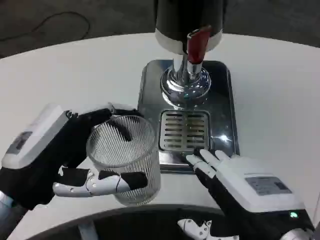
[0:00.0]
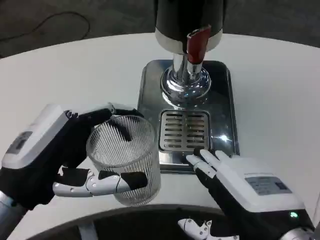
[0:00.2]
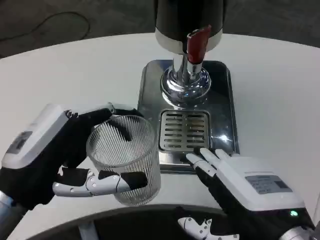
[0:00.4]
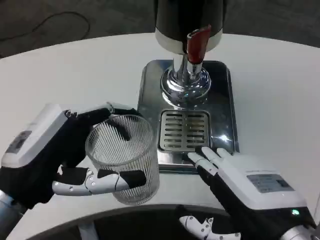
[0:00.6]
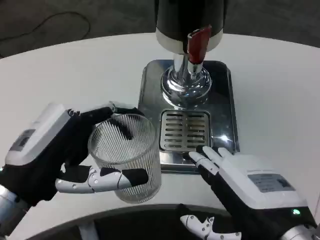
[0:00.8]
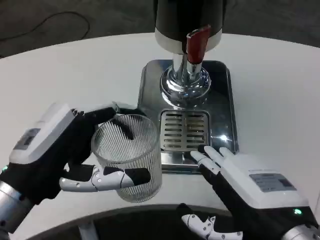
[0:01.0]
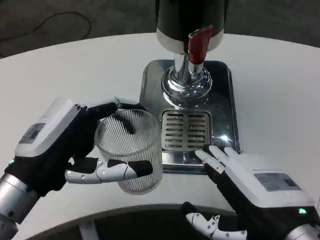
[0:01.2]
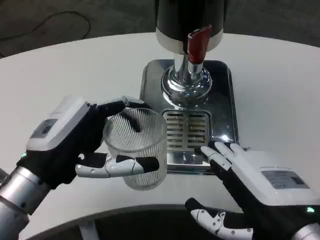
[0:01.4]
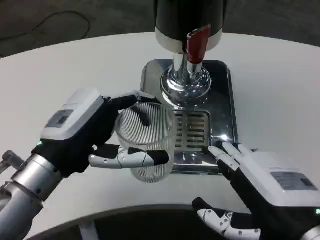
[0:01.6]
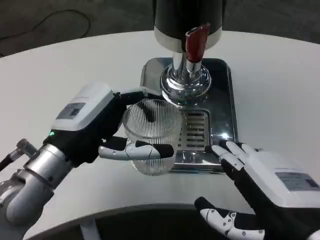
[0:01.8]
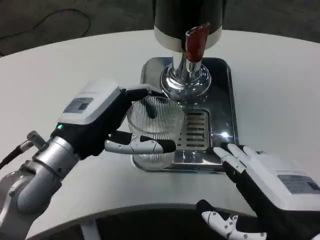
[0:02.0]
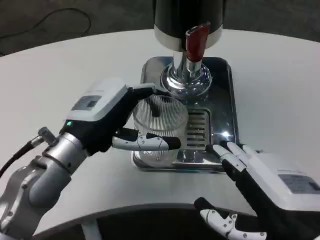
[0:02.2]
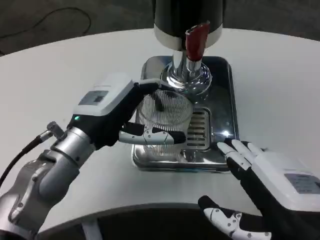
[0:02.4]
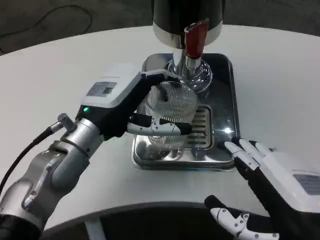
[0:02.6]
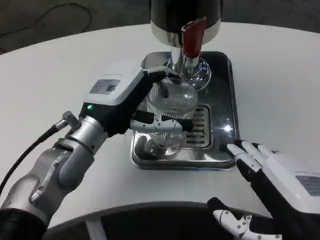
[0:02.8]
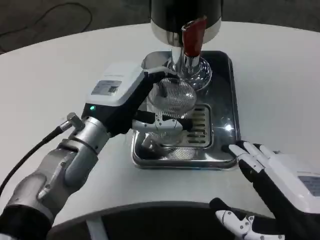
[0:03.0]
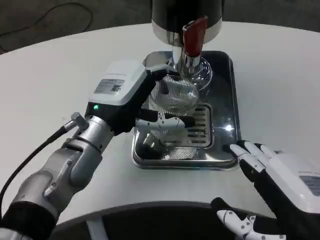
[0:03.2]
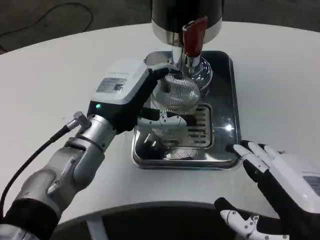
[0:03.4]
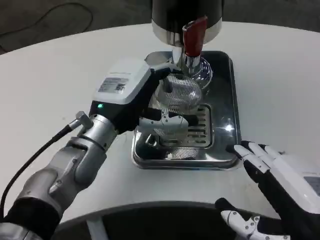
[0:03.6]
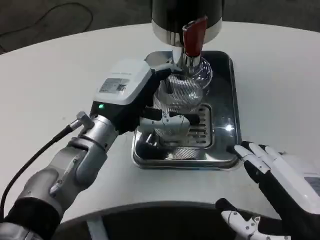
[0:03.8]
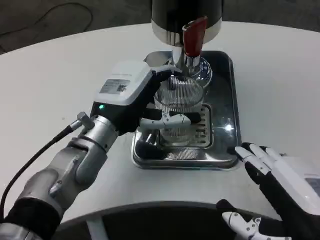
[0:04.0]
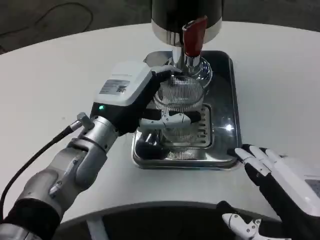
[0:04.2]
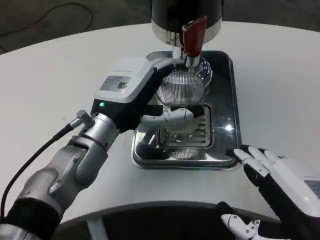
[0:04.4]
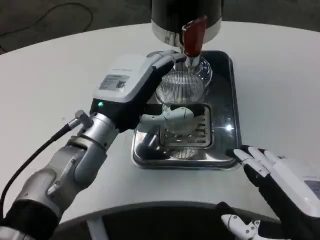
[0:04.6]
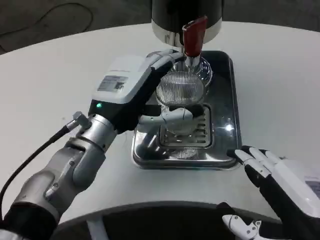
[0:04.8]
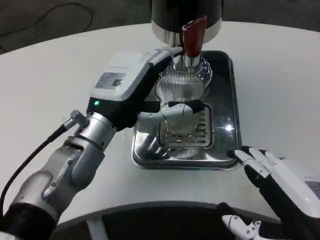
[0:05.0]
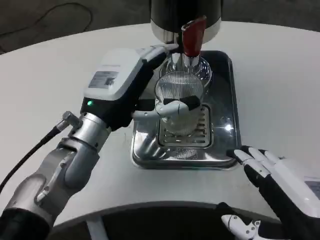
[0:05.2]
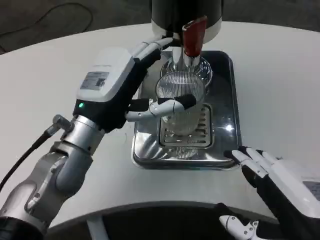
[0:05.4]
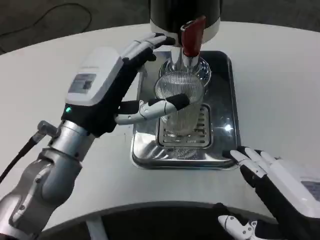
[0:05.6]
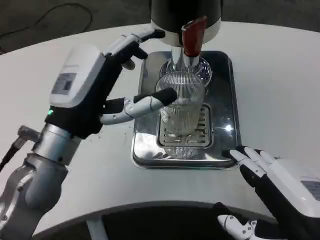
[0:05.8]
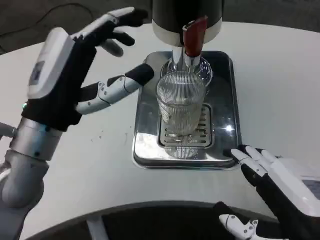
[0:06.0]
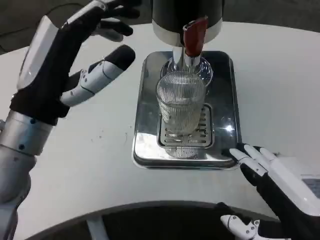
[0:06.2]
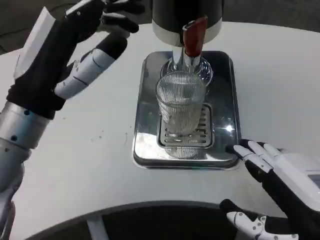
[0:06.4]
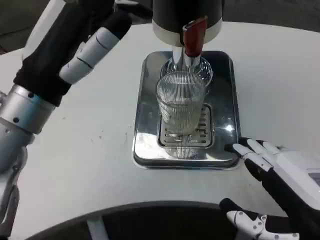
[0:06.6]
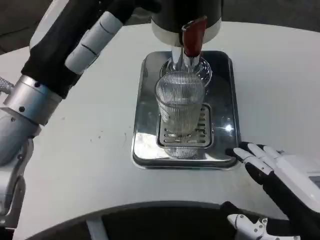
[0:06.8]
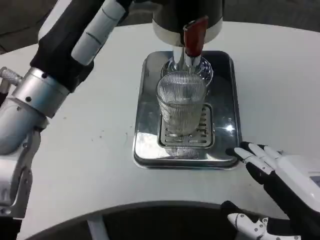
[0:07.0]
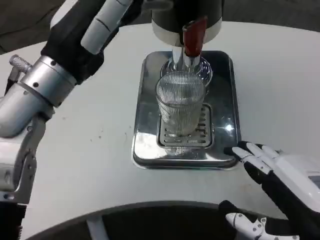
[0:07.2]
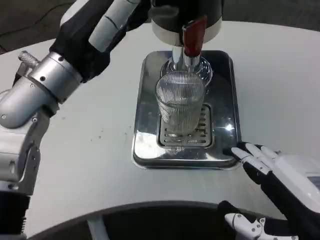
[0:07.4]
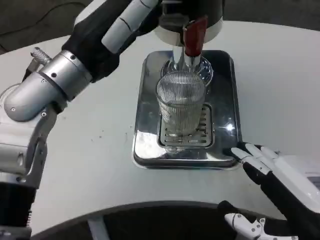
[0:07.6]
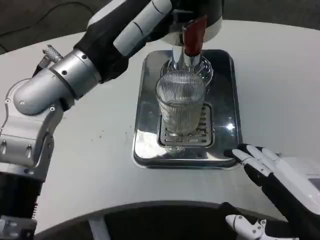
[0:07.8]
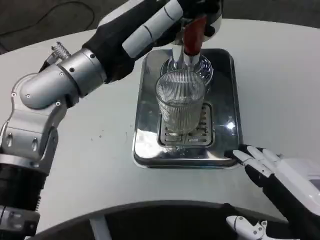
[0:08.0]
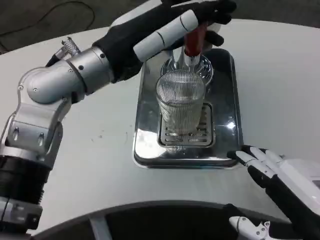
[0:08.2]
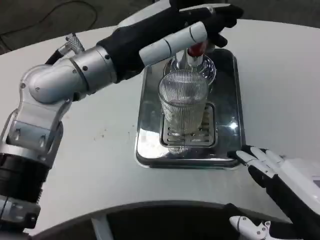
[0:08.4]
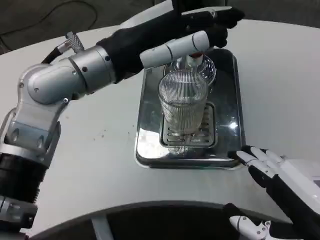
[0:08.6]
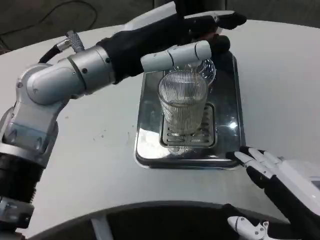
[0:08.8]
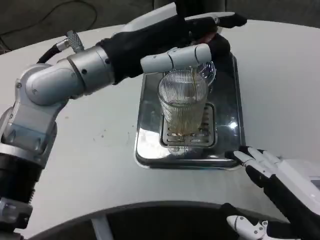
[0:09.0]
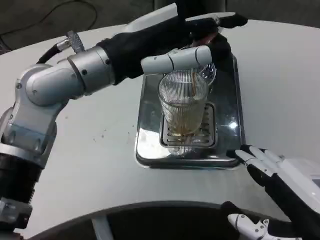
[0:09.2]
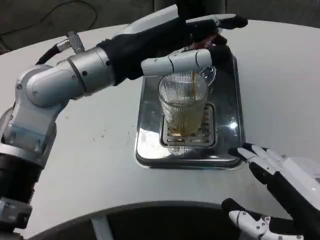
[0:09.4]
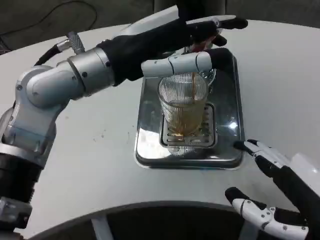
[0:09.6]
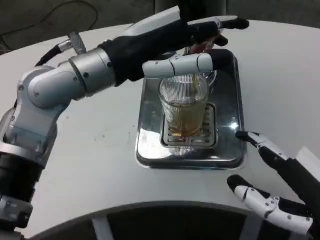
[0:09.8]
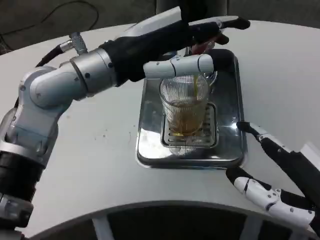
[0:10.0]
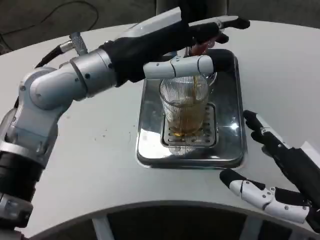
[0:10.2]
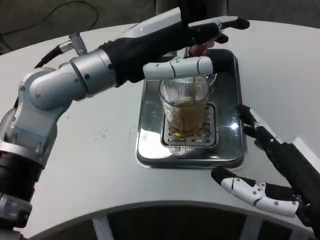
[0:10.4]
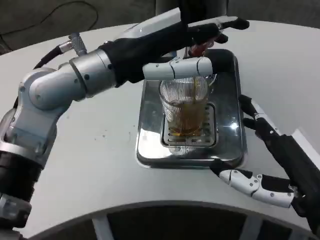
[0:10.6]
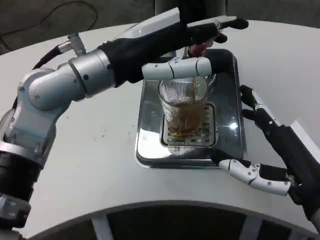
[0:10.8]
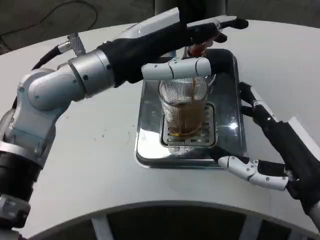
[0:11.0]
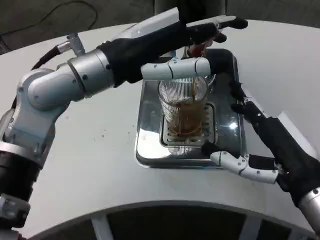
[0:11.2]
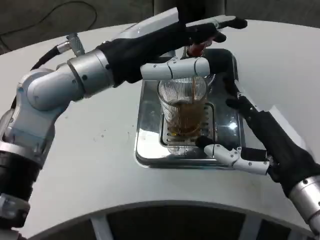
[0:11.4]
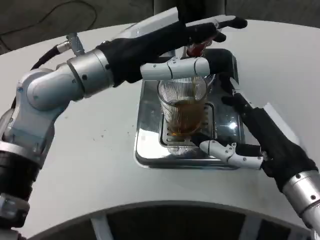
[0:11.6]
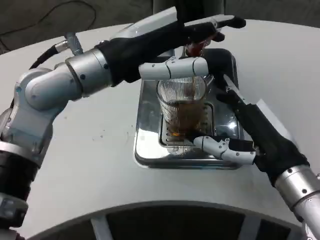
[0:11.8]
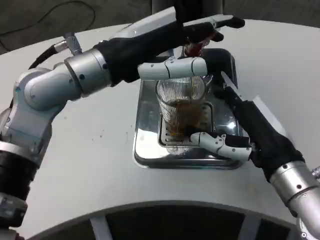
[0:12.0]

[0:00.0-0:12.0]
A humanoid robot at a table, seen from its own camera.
Task of the whole recording: Grasp the cup under the faucet to collect the drink, then remove the cup.
0:00.0 to 0:01.6: The left hand travels forward by some 5 cm.
0:01.6 to 0:03.0: The left hand heads forward, covering roughly 10 cm.
0:03.0 to 0:04.4: Neither hand changes place.
0:04.4 to 0:06.0: The left hand travels backward and to the left by approximately 10 cm.
0:06.0 to 0:07.6: The left hand heads upward, covering about 10 cm.
0:10.4 to 0:12.0: The right hand goes approximately 10 cm forward.

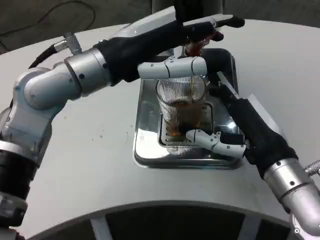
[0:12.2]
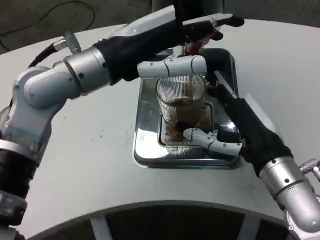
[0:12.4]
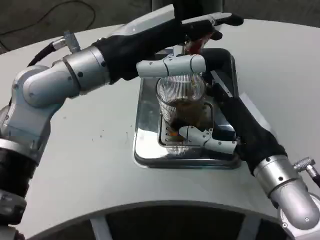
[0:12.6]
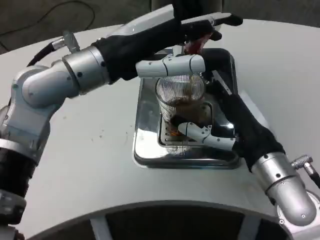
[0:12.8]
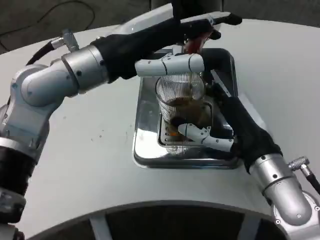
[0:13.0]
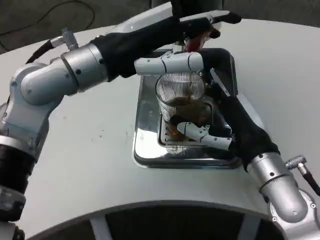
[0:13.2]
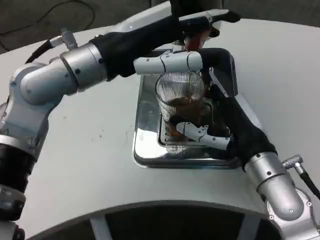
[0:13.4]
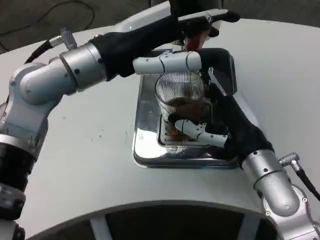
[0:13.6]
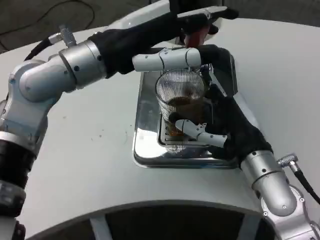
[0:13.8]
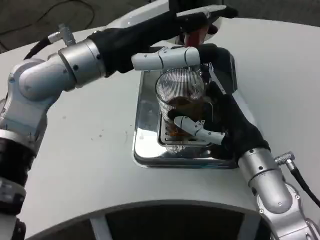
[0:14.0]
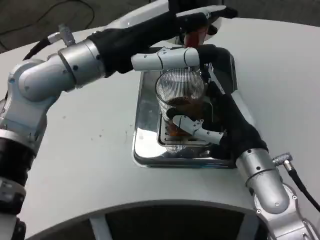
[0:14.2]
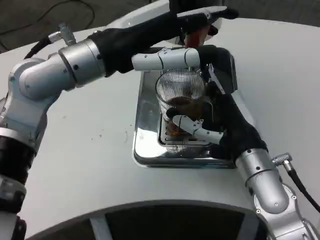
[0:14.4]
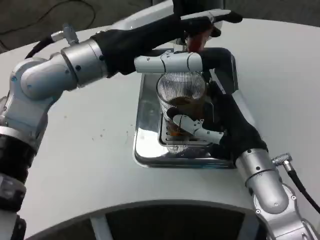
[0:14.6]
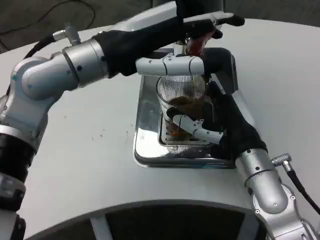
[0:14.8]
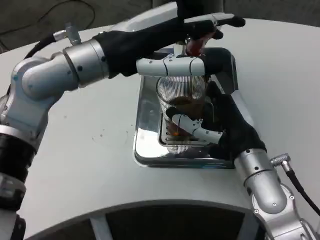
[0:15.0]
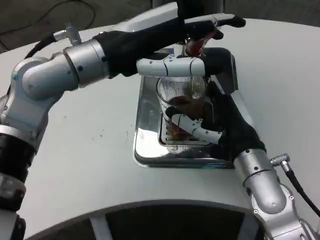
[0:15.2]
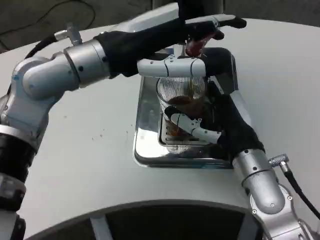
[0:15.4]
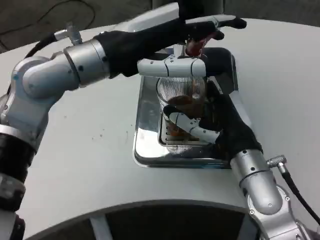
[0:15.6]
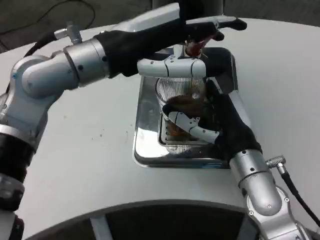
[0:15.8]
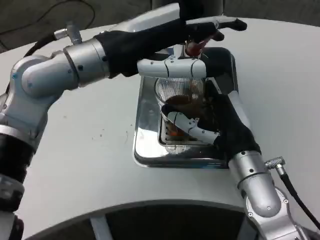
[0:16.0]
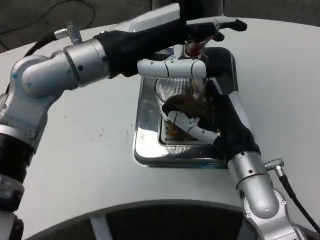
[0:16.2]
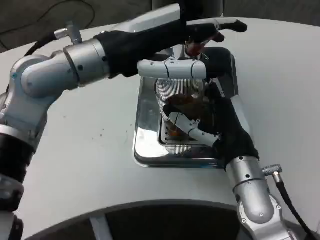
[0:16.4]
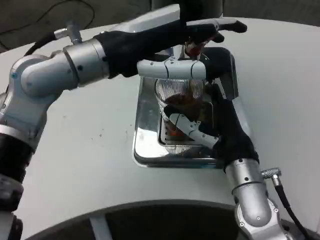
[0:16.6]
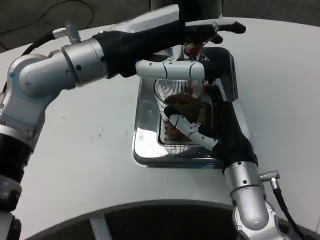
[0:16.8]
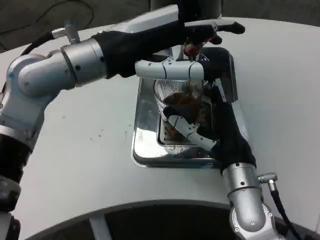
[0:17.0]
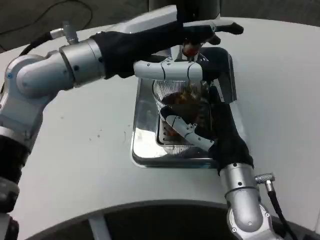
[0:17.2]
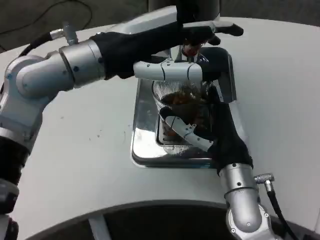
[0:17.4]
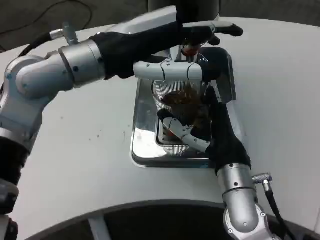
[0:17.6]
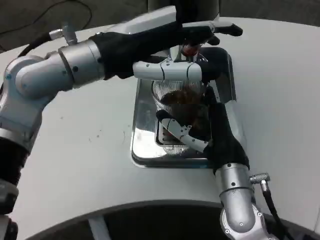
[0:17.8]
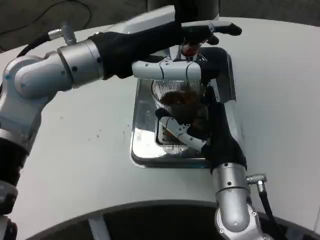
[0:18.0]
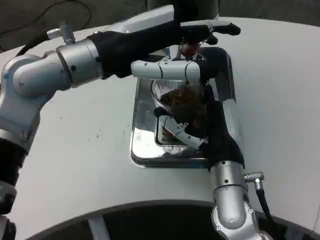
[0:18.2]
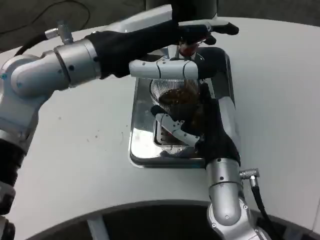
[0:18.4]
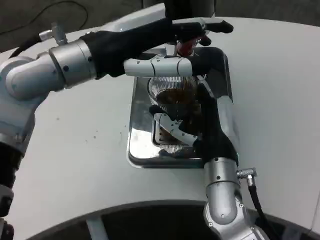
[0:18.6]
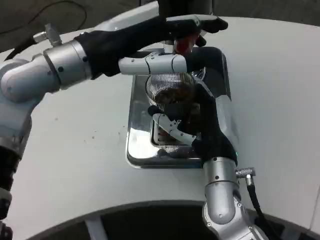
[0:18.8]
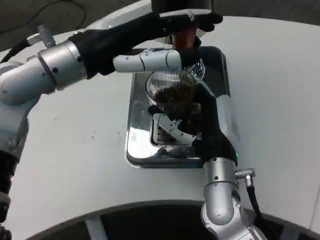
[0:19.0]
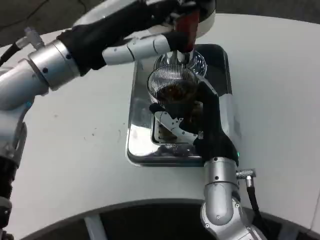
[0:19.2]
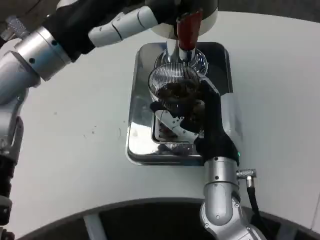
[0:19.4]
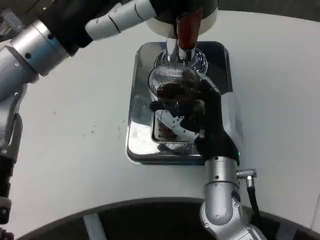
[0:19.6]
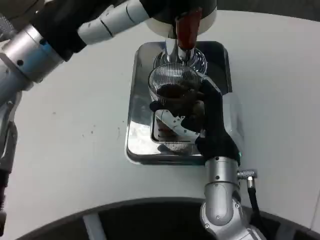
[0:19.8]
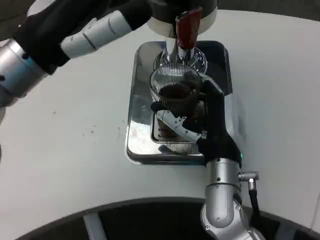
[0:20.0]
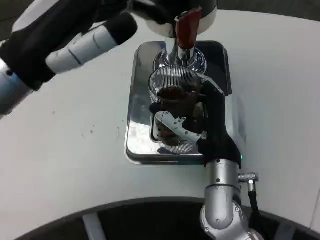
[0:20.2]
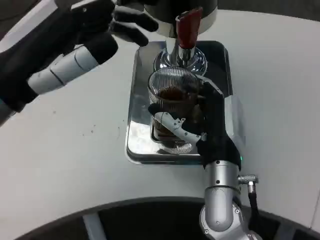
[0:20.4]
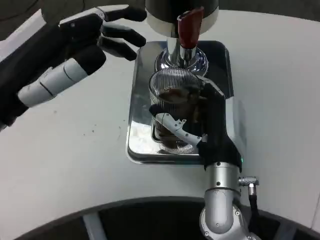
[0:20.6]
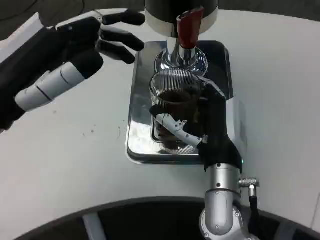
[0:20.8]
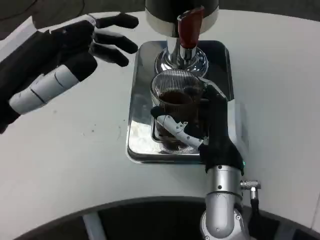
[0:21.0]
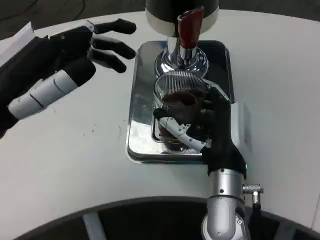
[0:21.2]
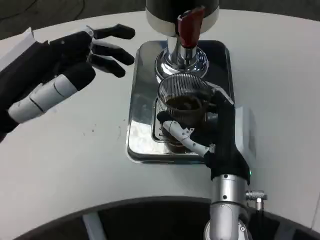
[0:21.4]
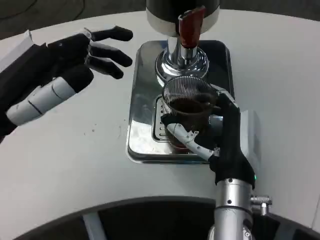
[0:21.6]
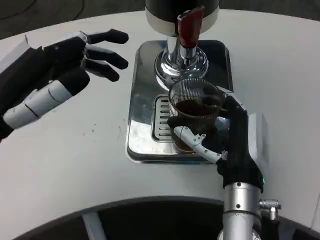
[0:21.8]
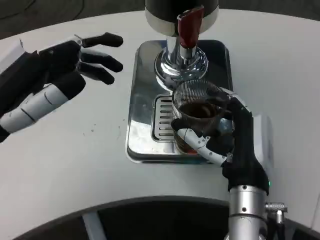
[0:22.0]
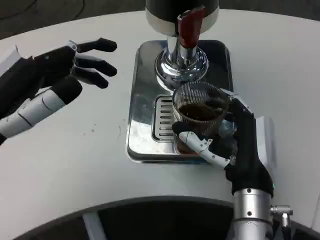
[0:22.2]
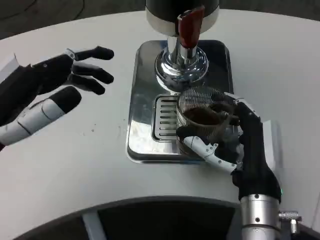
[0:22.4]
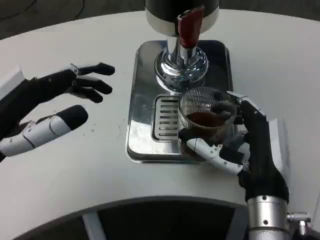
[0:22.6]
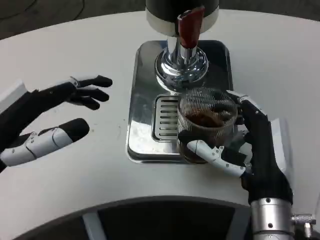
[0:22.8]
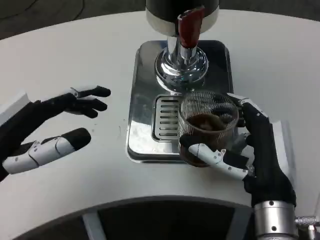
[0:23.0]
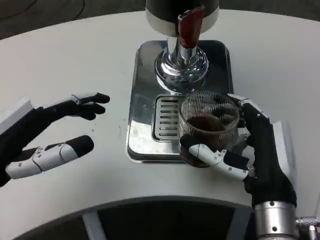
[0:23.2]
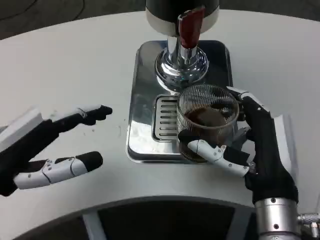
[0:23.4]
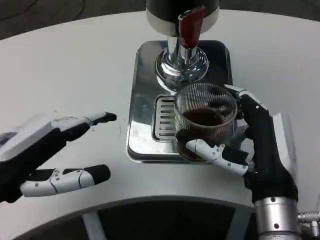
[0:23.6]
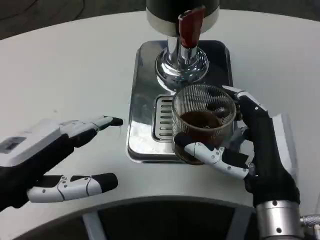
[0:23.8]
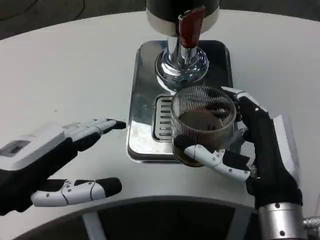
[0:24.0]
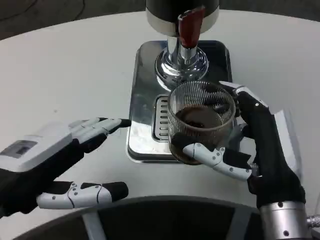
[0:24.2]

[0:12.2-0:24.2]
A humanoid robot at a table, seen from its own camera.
Task of the whole recording: Grasp the cup under the faucet to collect the drink, then remove the cup.
0:13.8 to 0:16.6: The hands make only small movements.
0:19.8 to 0:21.2: The left hand heads backward, to the left and downward, covering approximately 10 cm.
0:21.2 to 0:22.6: The right hand changes place by approximately 5 cm.
